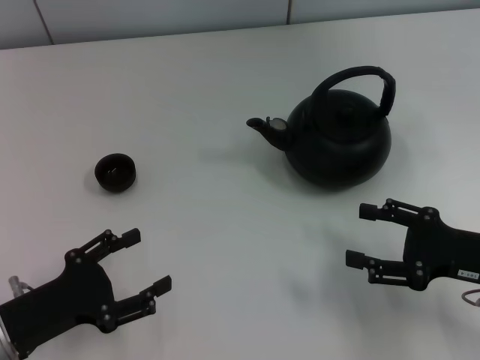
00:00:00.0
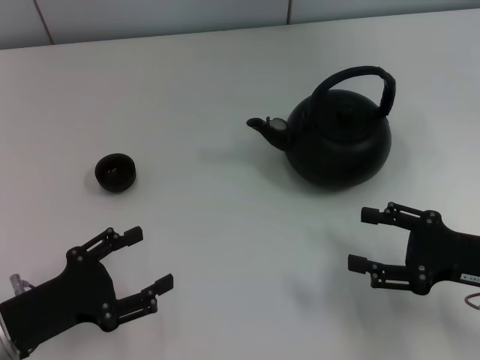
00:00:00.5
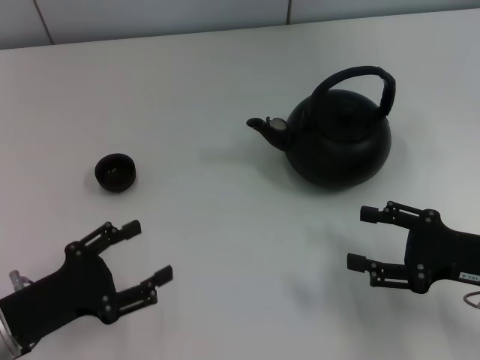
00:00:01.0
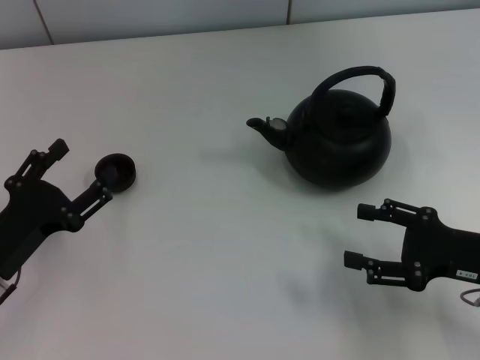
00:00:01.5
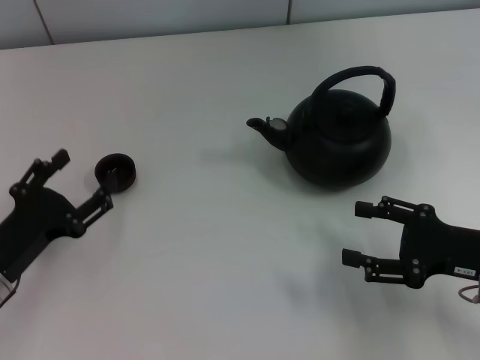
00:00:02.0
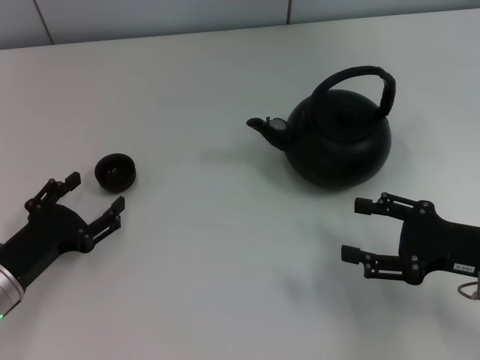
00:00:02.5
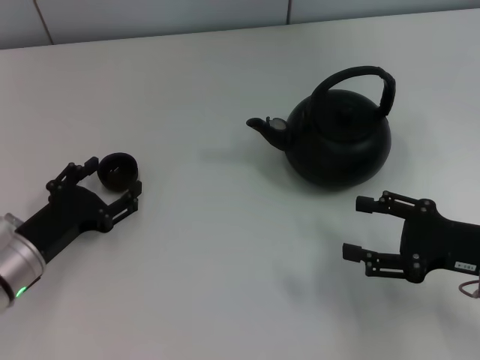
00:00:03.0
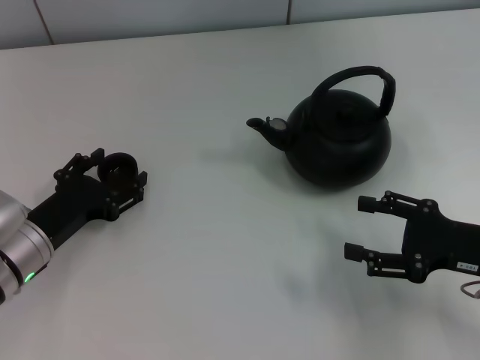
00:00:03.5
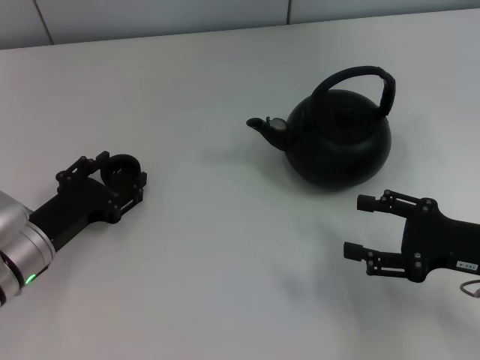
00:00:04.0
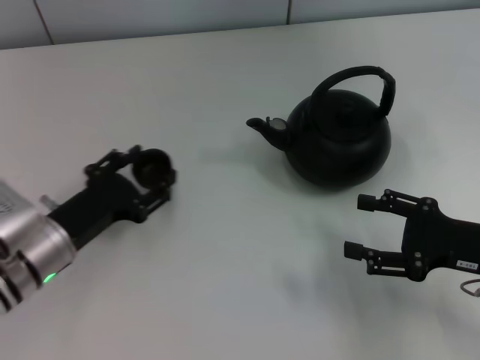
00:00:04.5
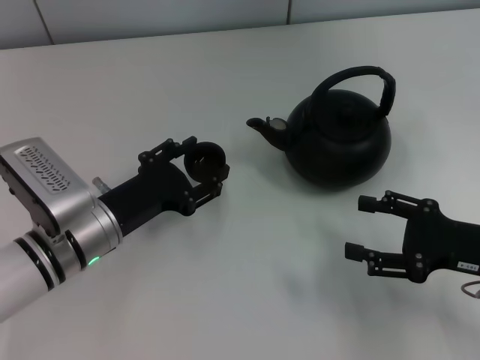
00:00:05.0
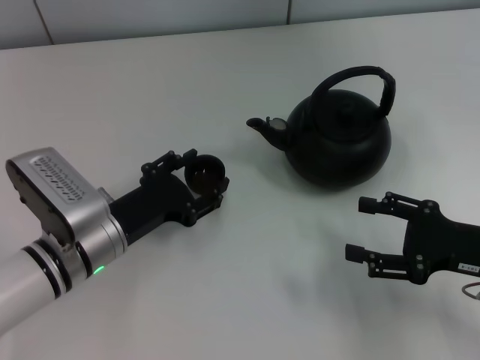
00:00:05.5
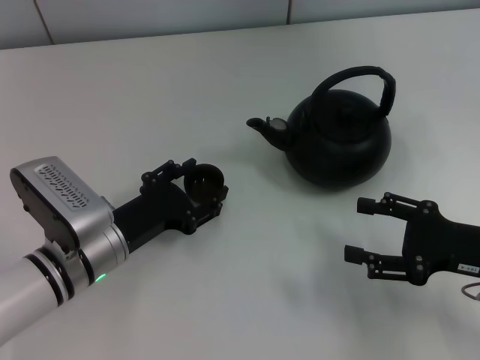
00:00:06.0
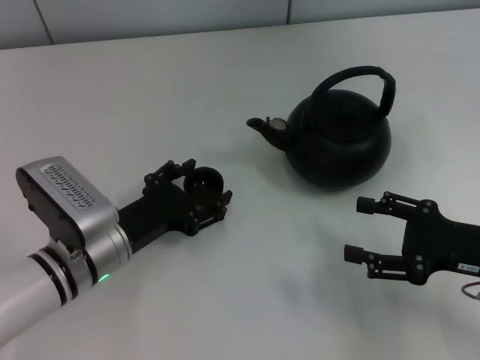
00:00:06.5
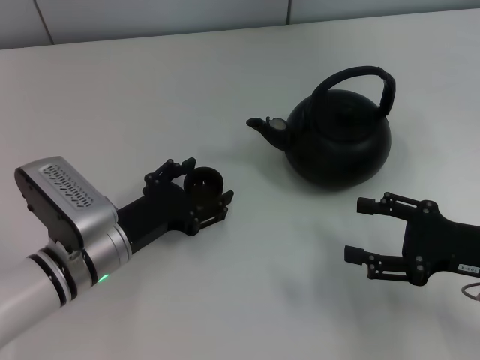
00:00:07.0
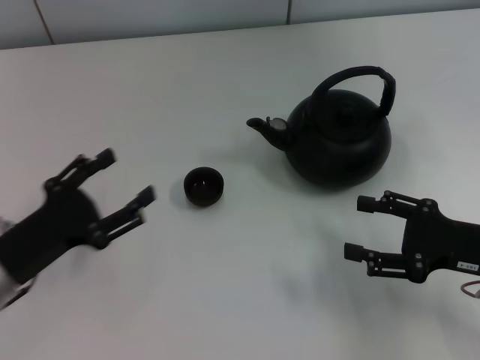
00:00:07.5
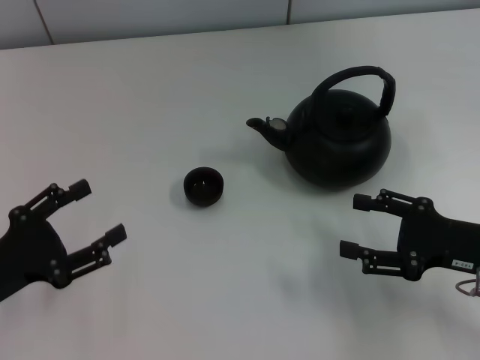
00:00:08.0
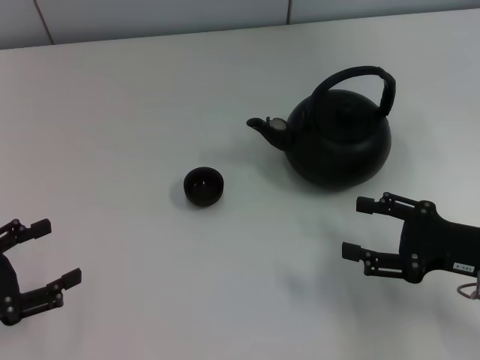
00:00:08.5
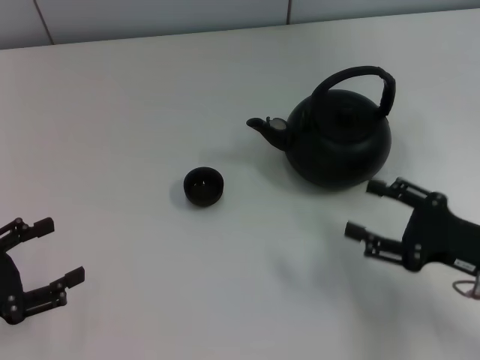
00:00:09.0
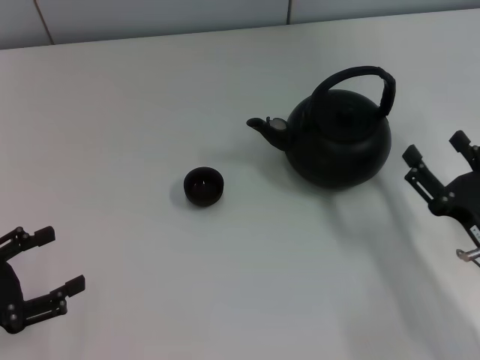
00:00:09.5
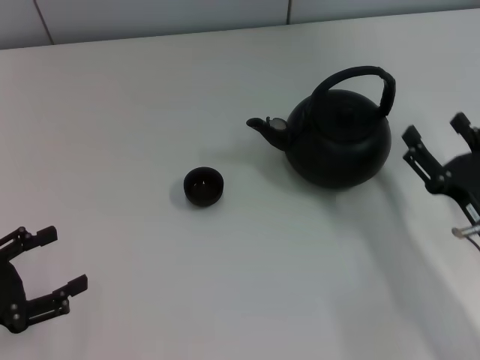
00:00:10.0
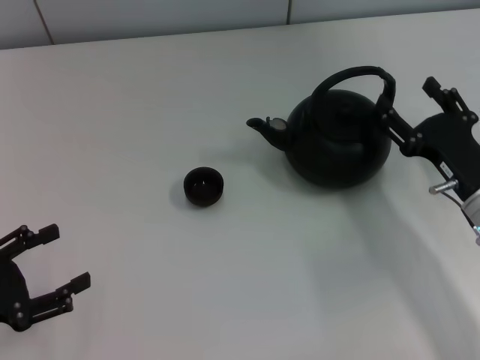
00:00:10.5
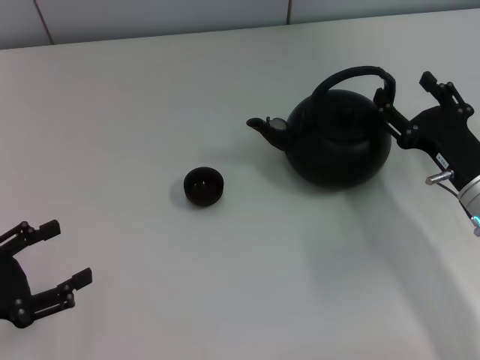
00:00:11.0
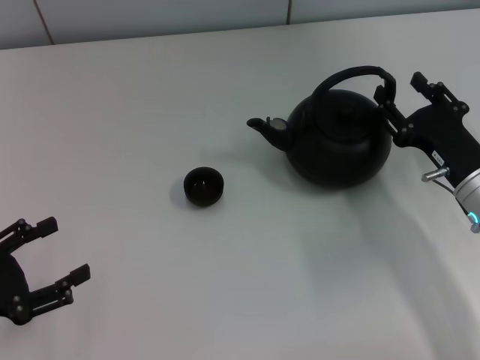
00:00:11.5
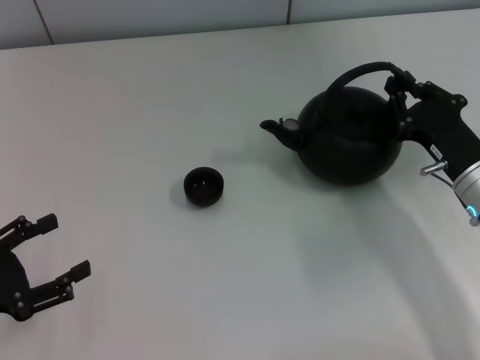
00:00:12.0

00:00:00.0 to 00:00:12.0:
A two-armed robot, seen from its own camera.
Task of the whole recording: Grasp the handle of the teapot with one hand and pour tea into the teacup.
Step, 00:00:00.0 to 00:00:04.0: Pick up the teacup with the left gripper.
Step, 00:00:04.5 to 00:00:07.0: Place the teacup in the center of view with the left gripper.
00:00:02.0 to 00:00:04.0: The left gripper ends up some 5 cm from where it was.
00:00:04.0 to 00:00:06.0: The left gripper is displaced to the right by approximately 5 cm, and closes its fingers.
00:00:06.0 to 00:00:08.0: The left gripper heads to the left and backward, covering about 15 cm, and opens up.
00:00:10.0 to 00:00:12.0: The right gripper shifts about 10 cm forward, and closes its fingers.

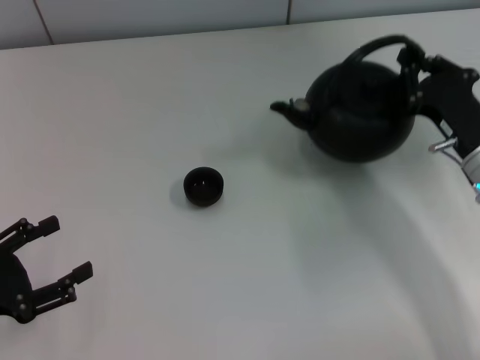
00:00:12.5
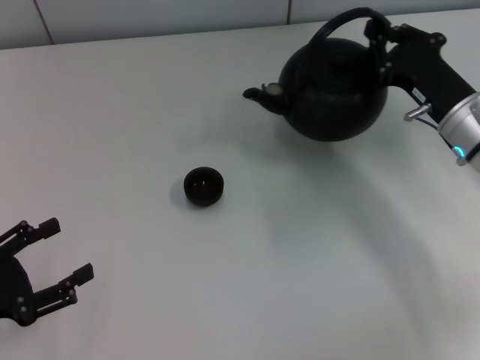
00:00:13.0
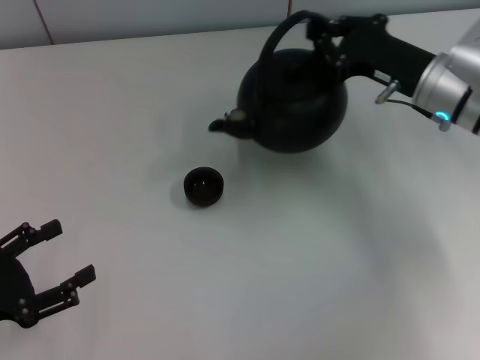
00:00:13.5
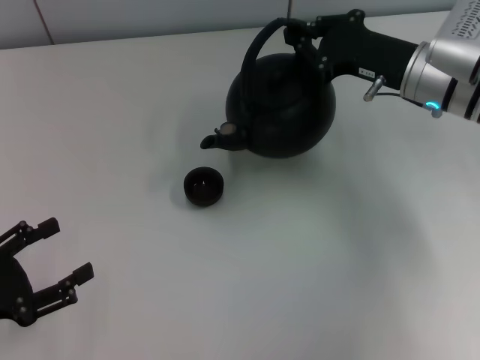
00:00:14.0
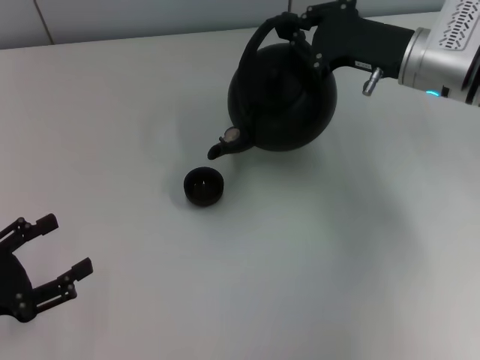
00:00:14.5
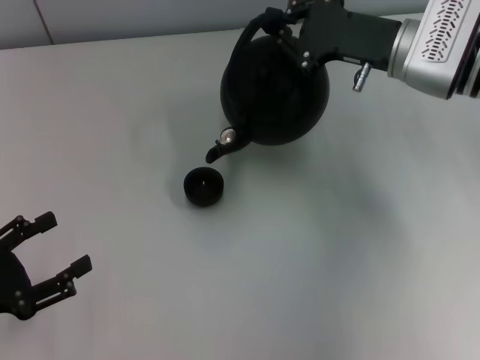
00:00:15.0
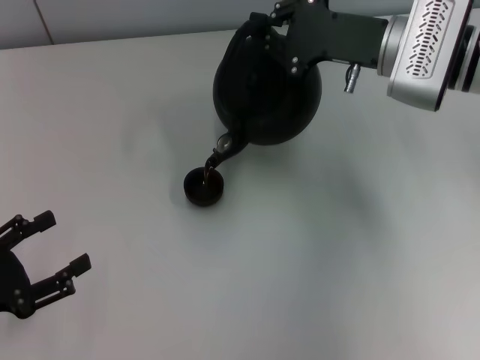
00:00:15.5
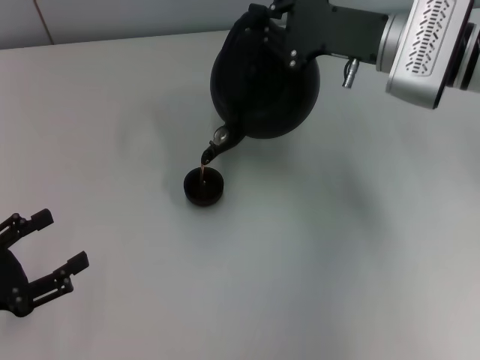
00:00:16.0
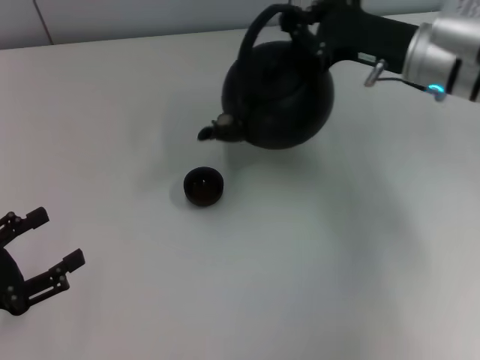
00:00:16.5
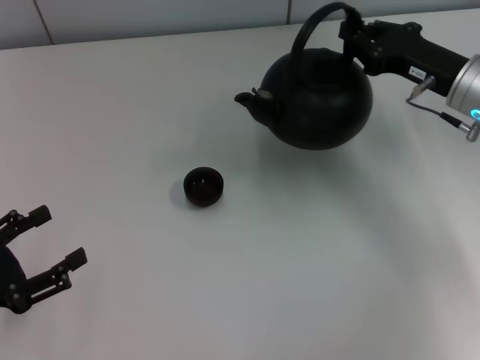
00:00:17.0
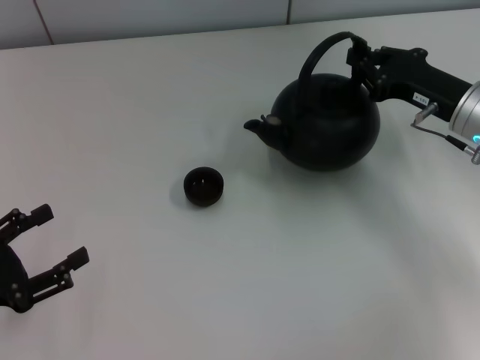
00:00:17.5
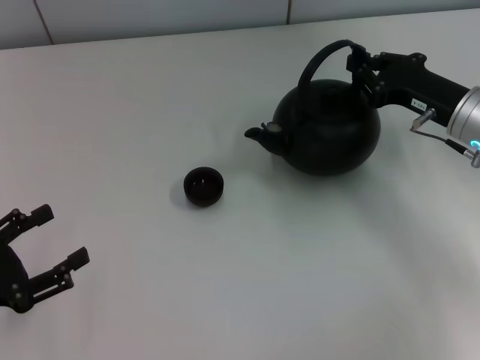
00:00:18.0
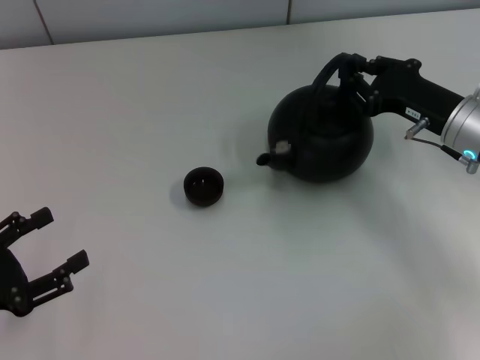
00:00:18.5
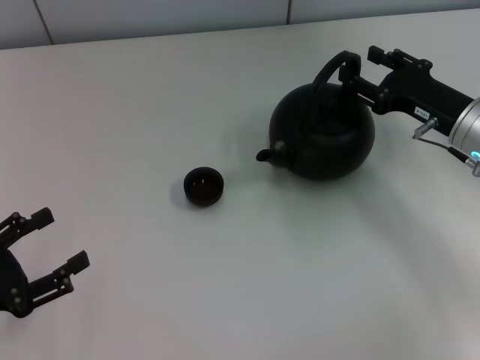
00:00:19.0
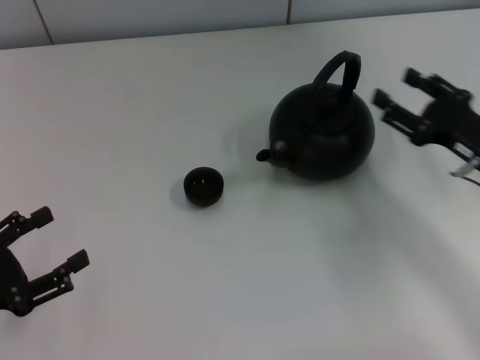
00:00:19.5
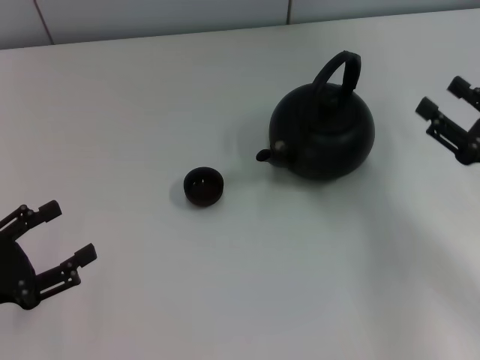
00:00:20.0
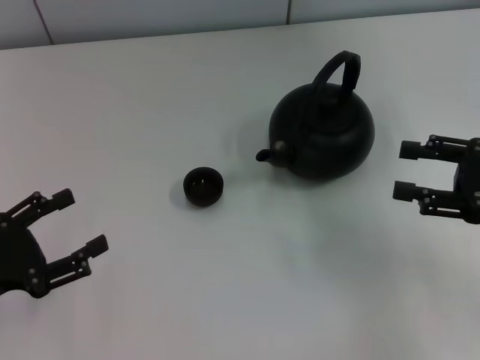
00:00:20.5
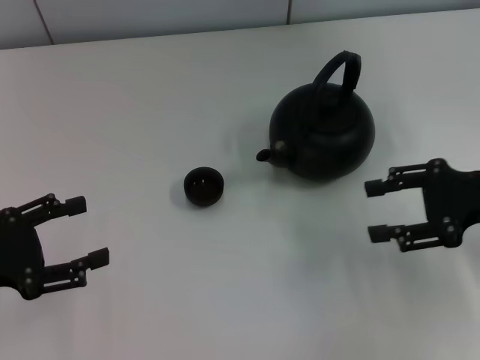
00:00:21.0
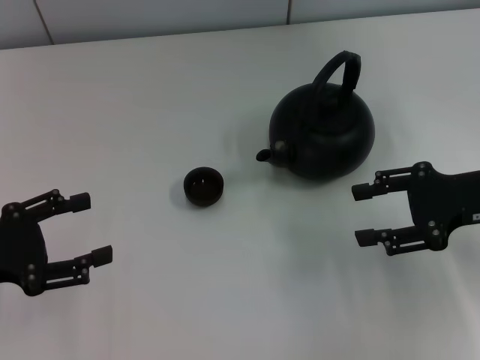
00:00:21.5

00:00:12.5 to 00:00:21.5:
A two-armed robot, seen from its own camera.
Task of the whole recording: Grasp the handle of the teapot with one hand and pour tea into the teacup.
Step, 00:00:17.0 to 00:00:19.0: Put down the teapot with the right gripper.
00:00:12.5 to 00:00:14.5: The right gripper is displaced forward and upward by approximately 10 cm.
00:00:14.5 to 00:00:17.0: The right gripper changes place by some 5 cm.
00:00:17.0 to 00:00:19.5: The right gripper goes roughly 10 cm backward, and opens.
00:00:19.5 to 00:00:21.5: The left gripper travels forward by some 5 cm; the right gripper shifts approximately 5 cm upward.

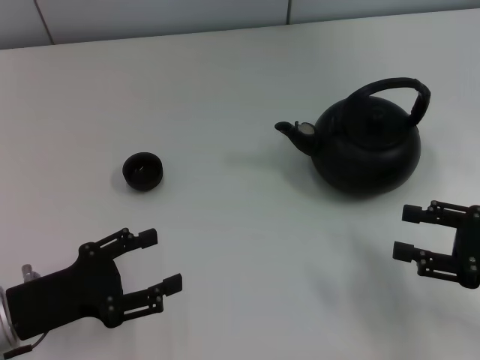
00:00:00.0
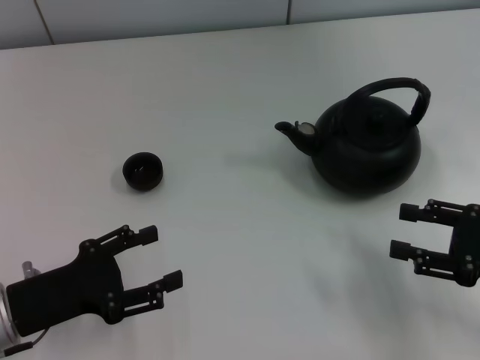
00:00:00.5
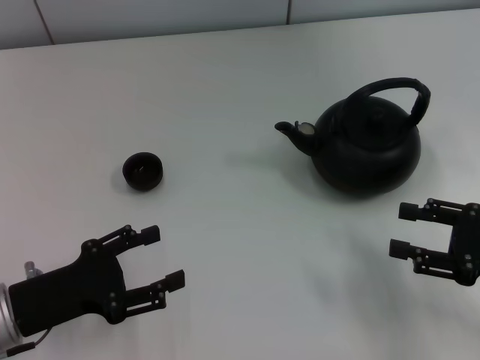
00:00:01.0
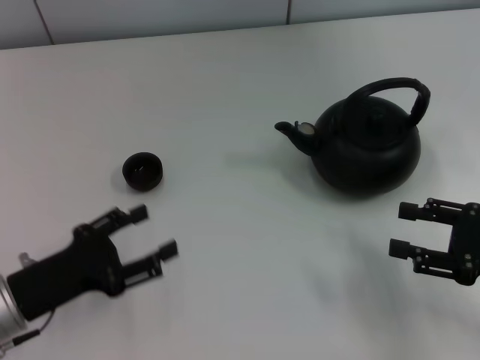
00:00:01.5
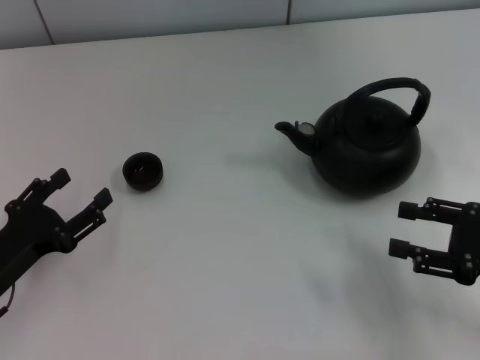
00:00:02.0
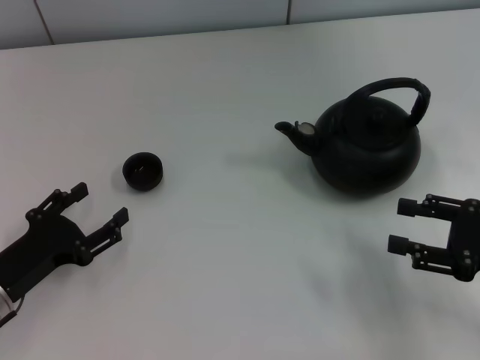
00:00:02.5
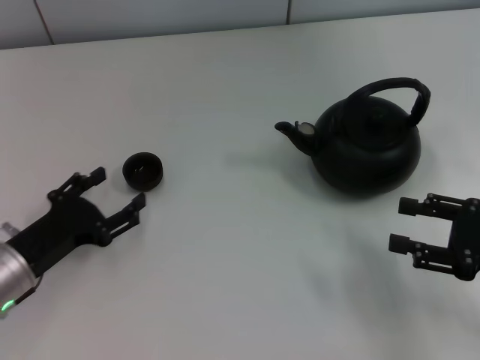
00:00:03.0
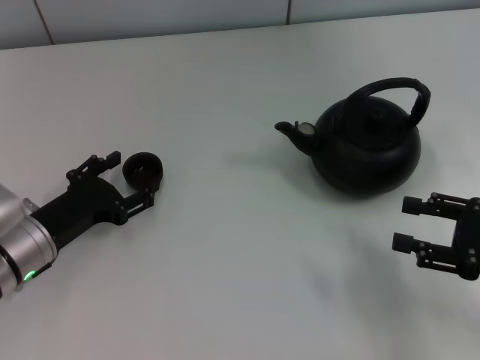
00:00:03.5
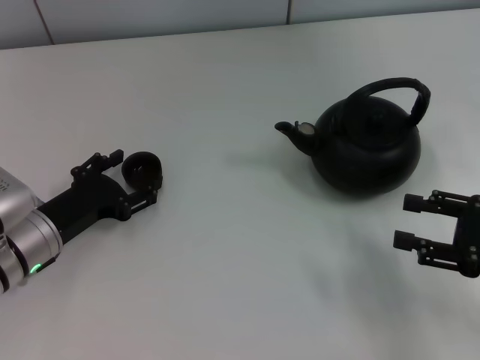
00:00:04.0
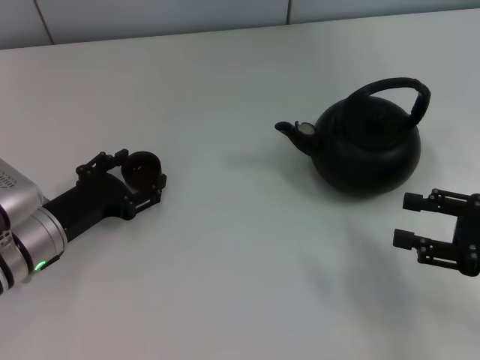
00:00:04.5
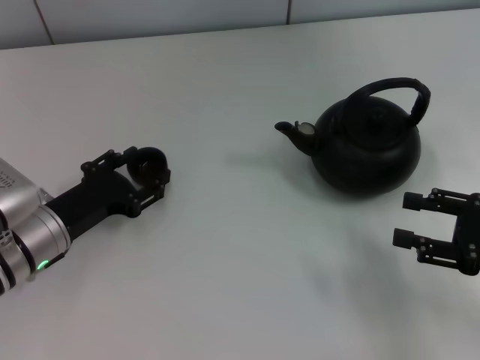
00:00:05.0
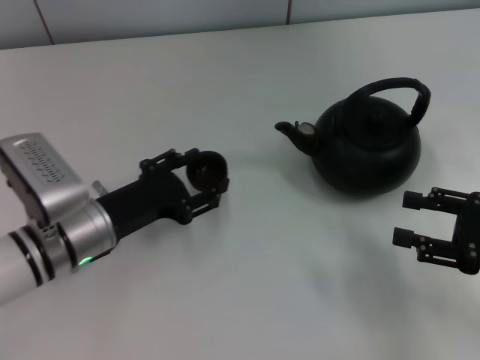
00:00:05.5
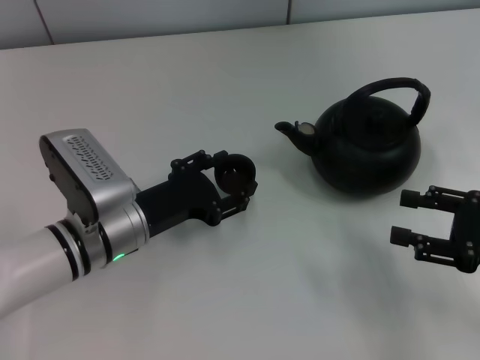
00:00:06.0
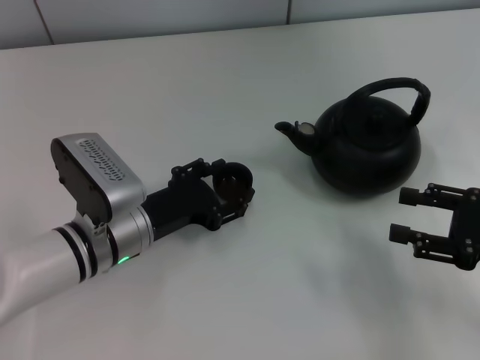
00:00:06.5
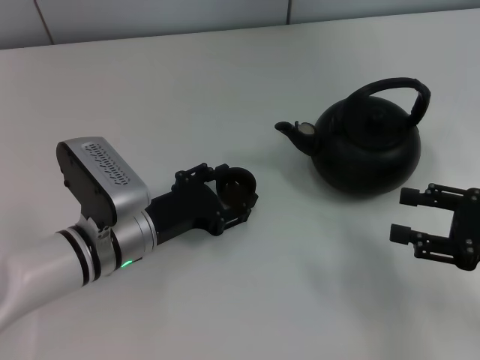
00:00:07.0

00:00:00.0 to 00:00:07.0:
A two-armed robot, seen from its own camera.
Task of the whole recording: Grasp the handle of the teapot with one hand and pour tea into the teacup.
Step, 00:00:00.0 to 00:00:05.0: Pick up the teacup with the left gripper.
00:00:02.0 to 00:00:03.5: The left gripper goes roughly 5 cm forward.
00:00:03.5 to 00:00:05.0: The left gripper closes its fingers.
00:00:05.0 to 00:00:07.0: The left gripper travels to the right by roughly 10 cm, and opens up.
